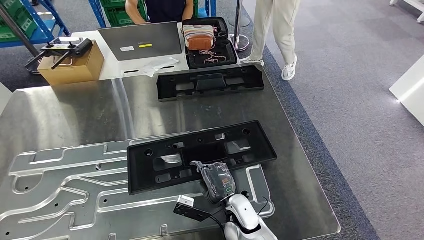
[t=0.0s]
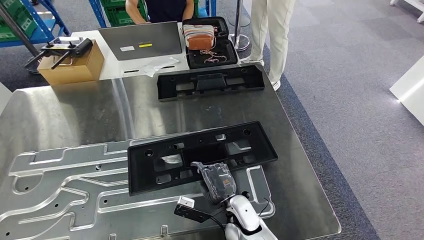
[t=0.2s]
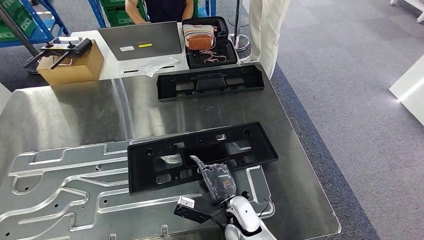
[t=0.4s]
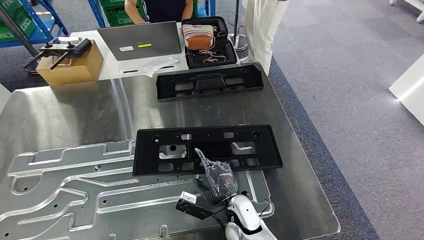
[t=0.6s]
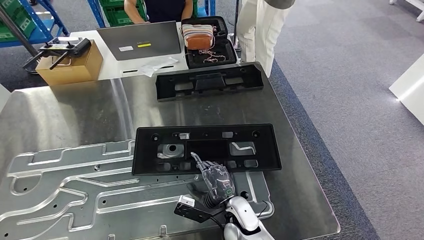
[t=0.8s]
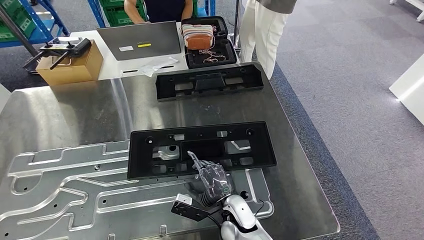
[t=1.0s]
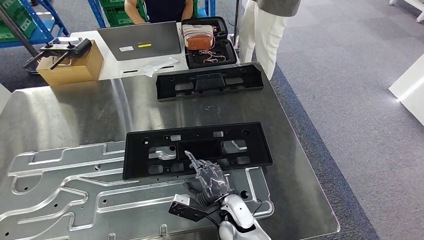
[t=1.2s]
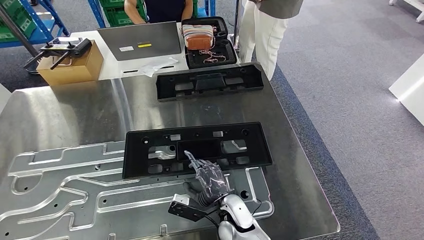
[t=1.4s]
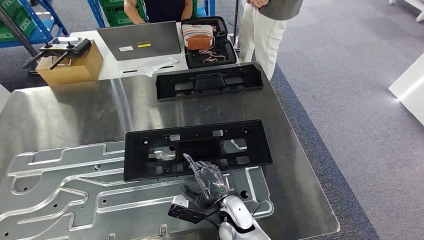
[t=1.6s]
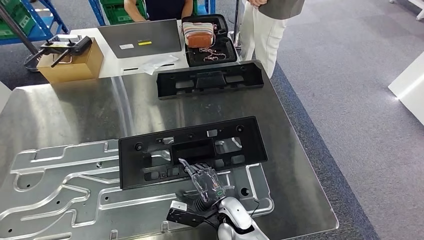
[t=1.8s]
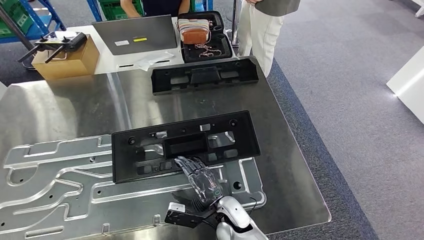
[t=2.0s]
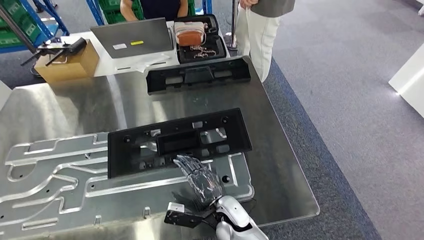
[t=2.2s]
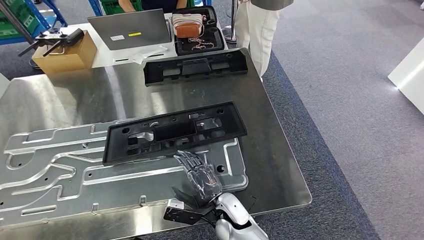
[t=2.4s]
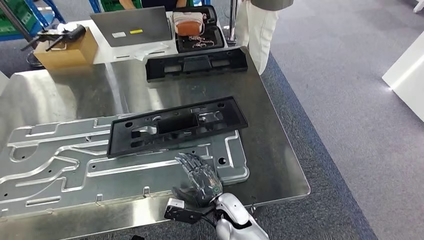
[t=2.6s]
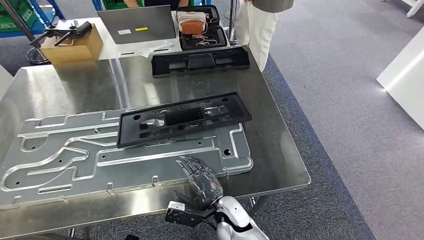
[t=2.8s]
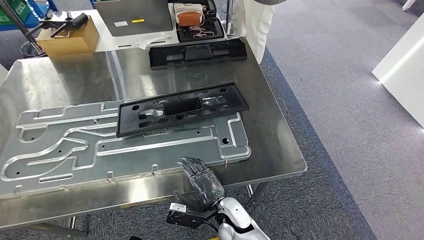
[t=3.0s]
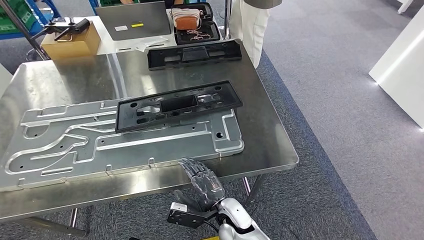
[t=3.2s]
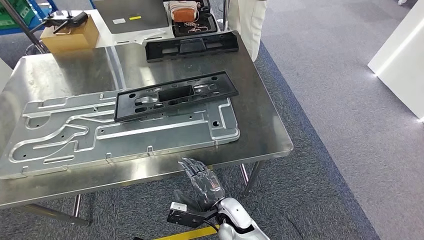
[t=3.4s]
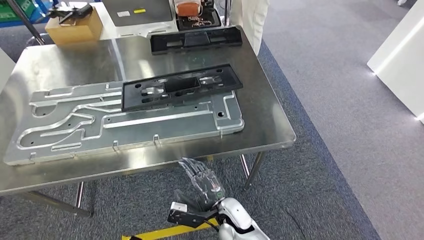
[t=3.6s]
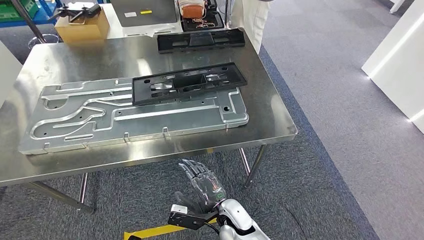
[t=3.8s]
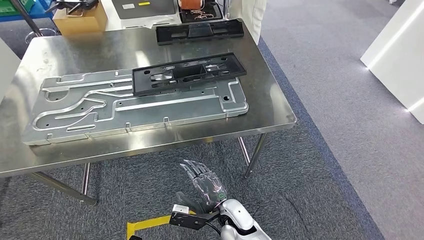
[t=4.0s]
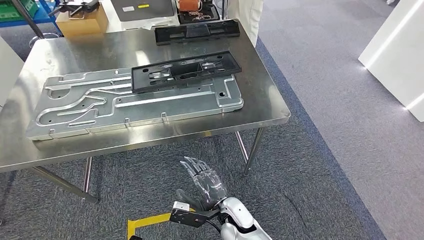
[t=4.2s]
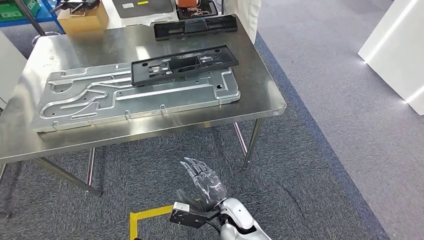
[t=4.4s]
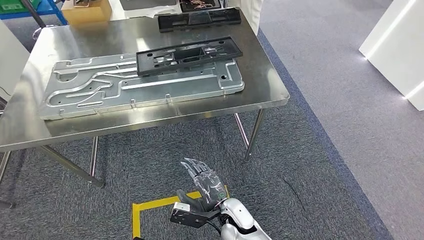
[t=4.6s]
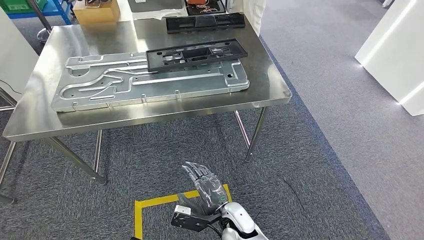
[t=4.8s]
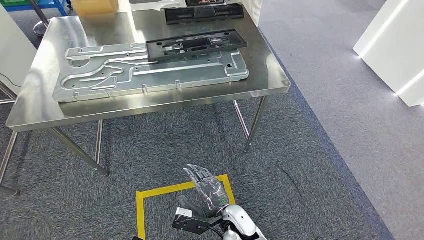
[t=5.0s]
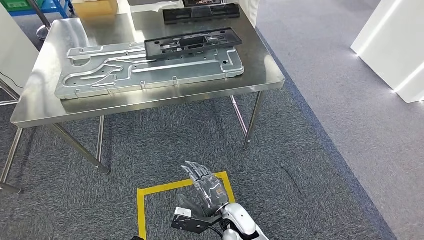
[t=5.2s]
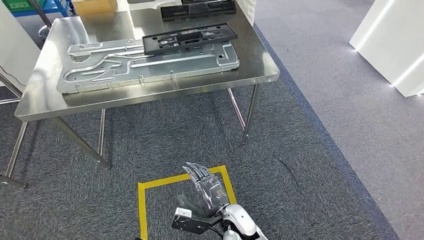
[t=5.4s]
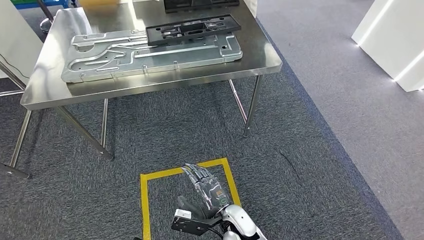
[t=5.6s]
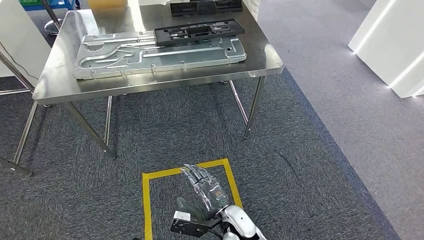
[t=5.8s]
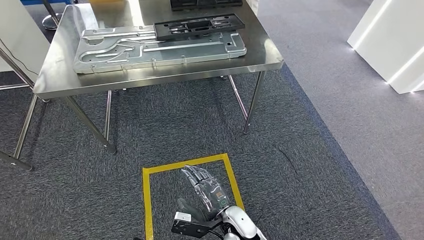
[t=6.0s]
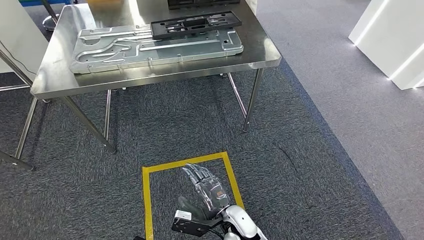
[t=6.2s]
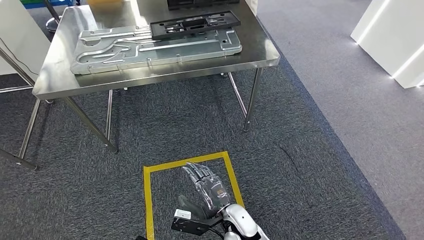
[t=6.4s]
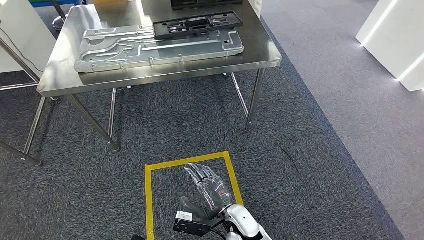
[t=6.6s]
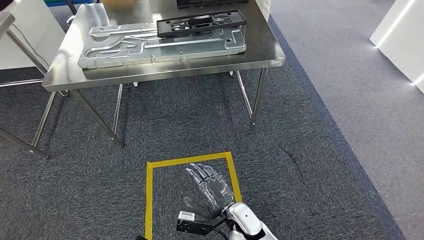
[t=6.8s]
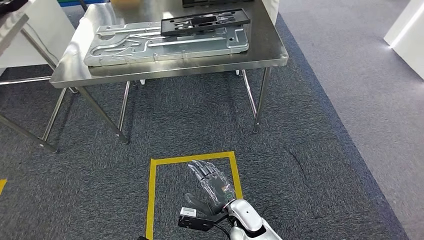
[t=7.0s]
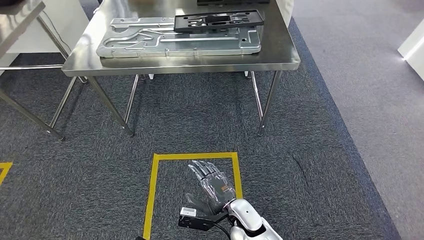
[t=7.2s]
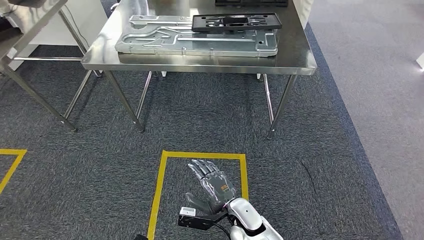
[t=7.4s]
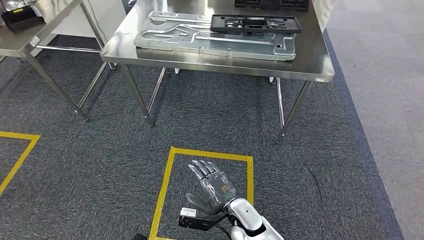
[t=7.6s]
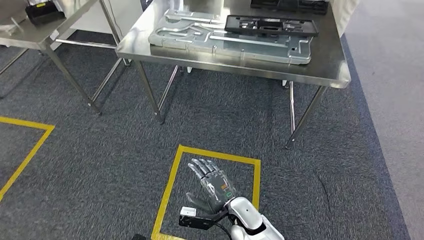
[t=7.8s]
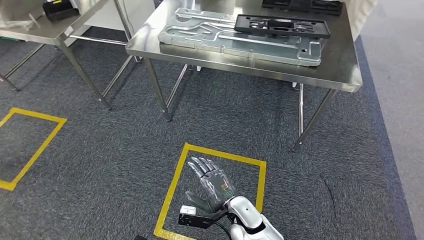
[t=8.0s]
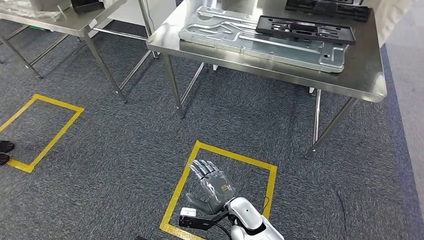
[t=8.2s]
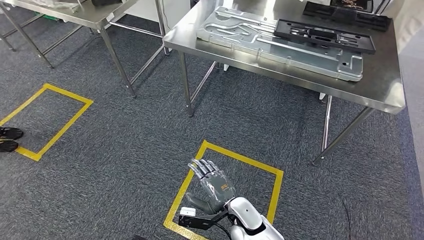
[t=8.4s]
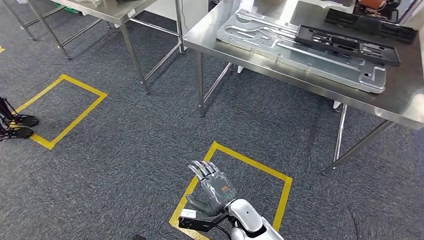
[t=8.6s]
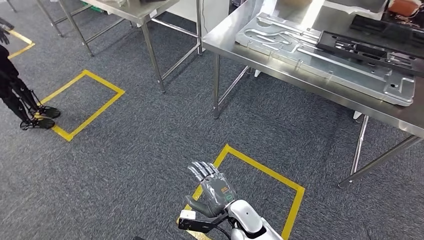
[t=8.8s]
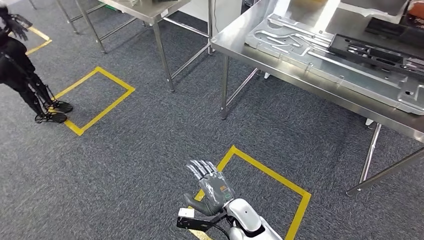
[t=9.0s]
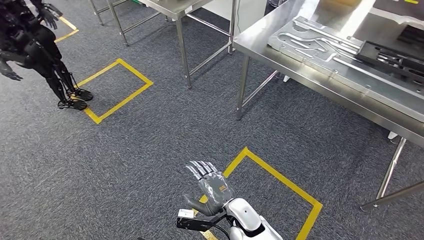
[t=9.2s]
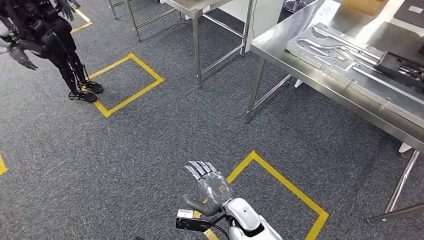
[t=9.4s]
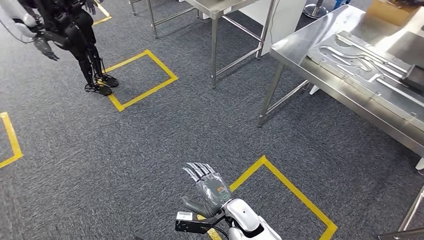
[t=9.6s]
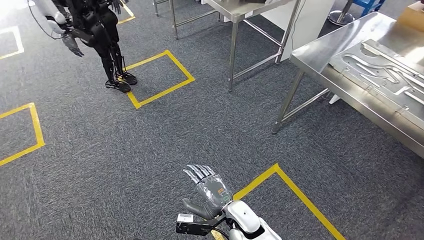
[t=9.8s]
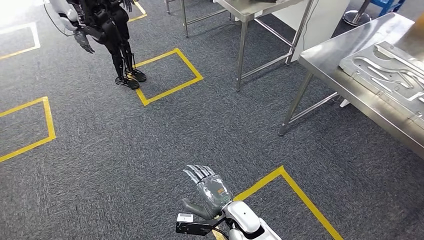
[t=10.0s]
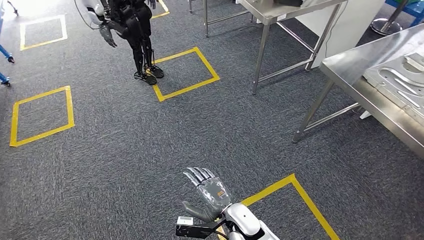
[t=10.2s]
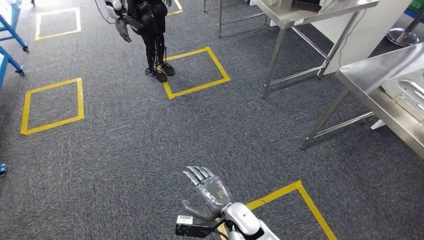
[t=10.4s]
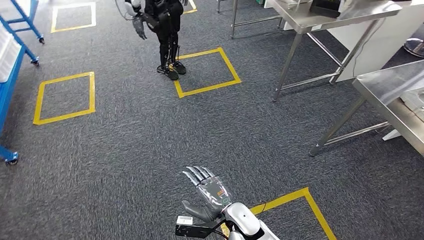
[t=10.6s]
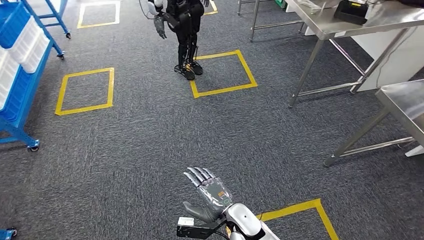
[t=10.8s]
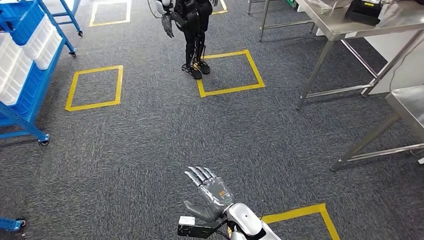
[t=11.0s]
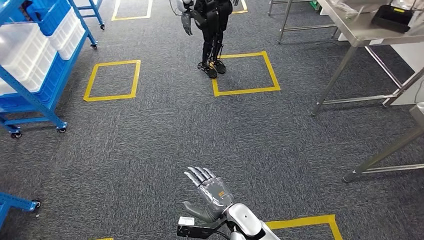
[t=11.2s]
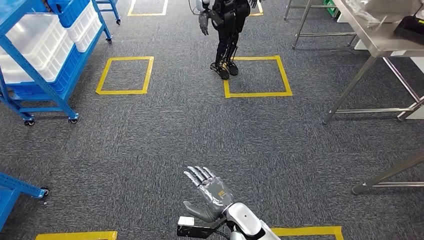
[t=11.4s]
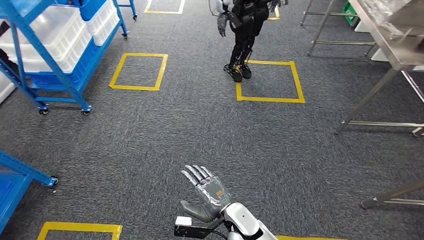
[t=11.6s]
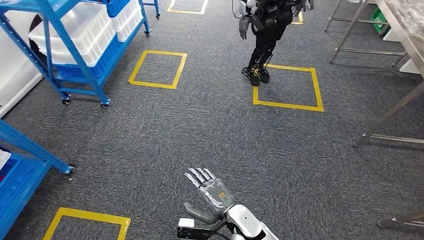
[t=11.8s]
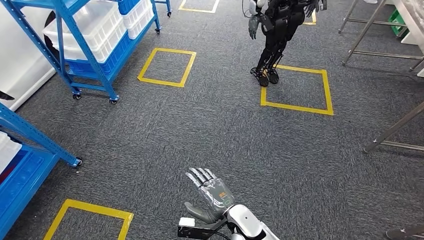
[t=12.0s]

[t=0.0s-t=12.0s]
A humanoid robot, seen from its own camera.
Step, t=1.6s to t=5.0s: Insert the large material into the corresponding hole on the workbench.
t=0.0s to t=1.6s: There are only small adjustments of the hands.

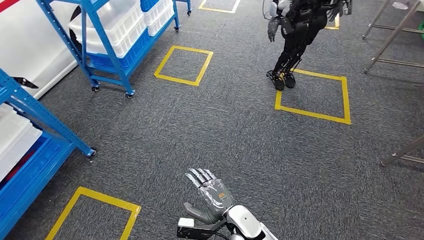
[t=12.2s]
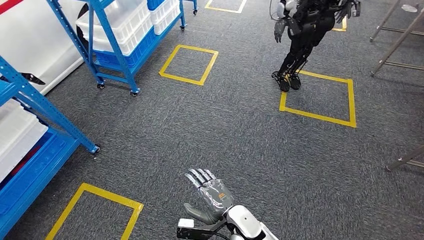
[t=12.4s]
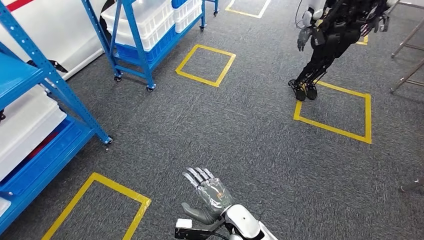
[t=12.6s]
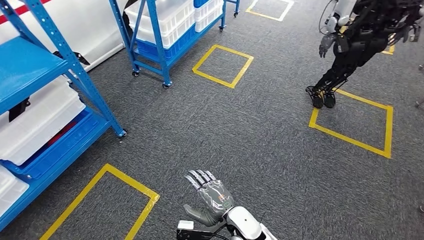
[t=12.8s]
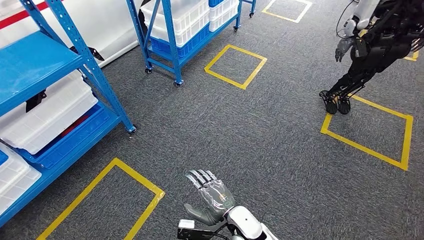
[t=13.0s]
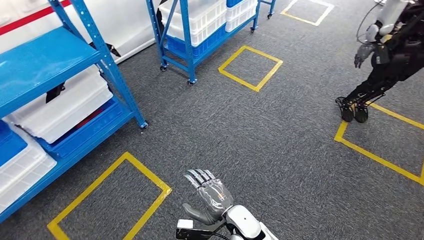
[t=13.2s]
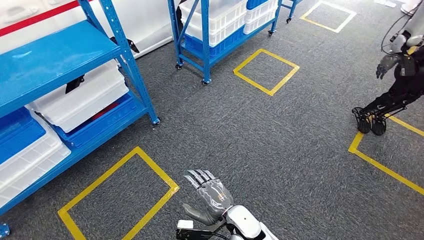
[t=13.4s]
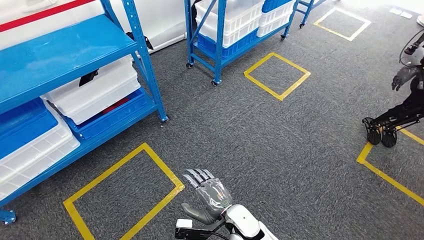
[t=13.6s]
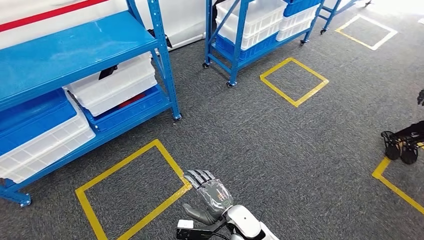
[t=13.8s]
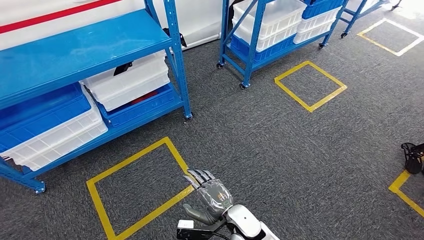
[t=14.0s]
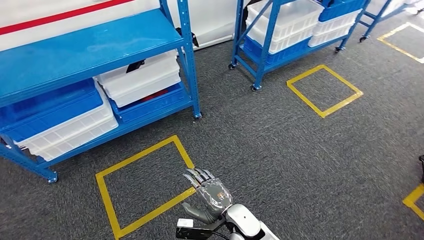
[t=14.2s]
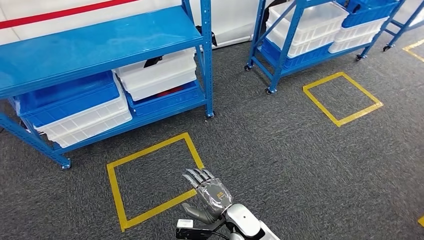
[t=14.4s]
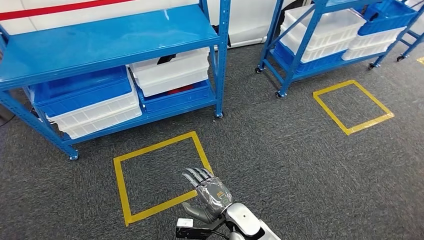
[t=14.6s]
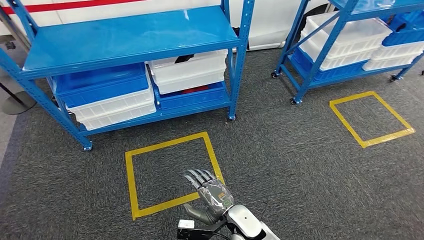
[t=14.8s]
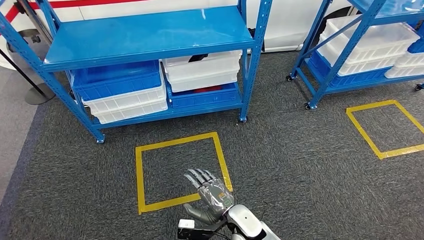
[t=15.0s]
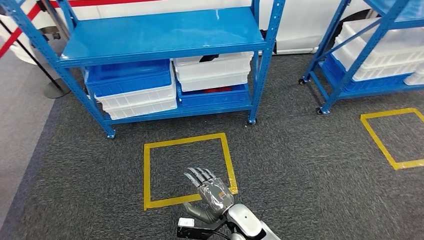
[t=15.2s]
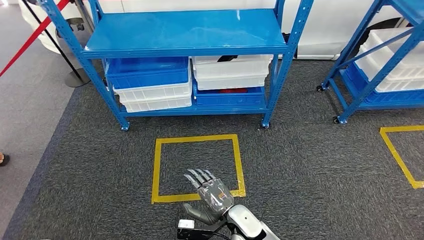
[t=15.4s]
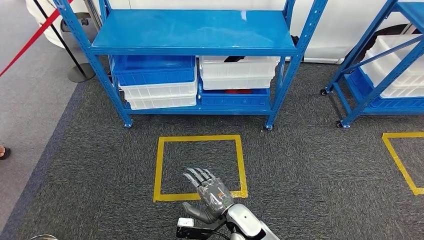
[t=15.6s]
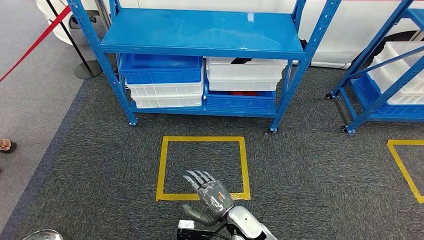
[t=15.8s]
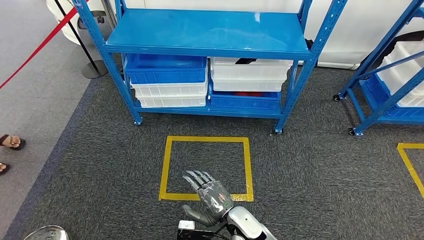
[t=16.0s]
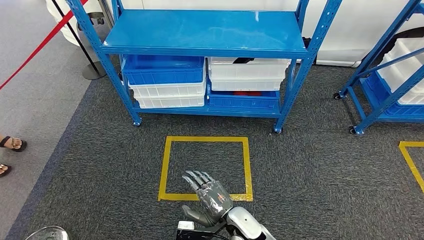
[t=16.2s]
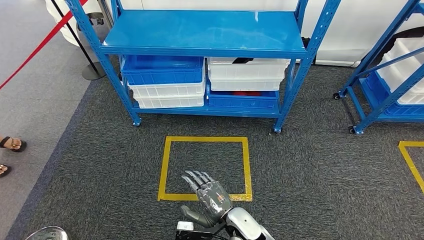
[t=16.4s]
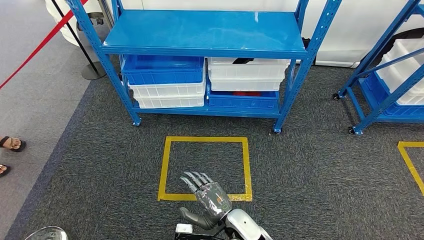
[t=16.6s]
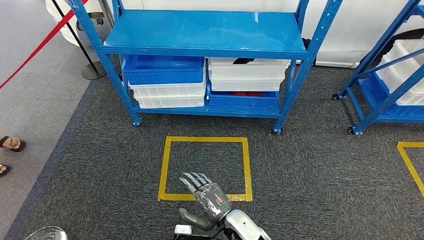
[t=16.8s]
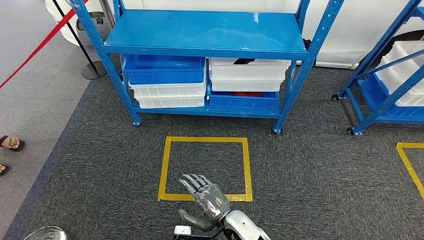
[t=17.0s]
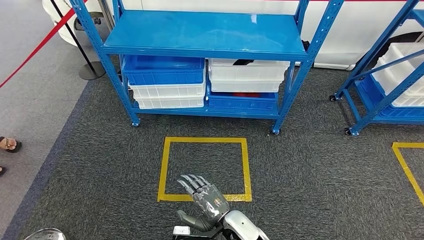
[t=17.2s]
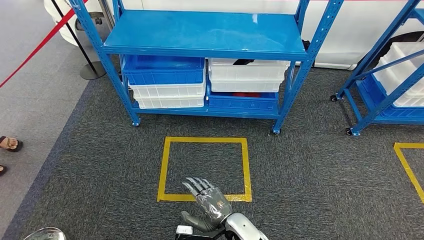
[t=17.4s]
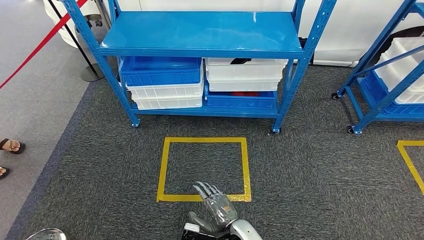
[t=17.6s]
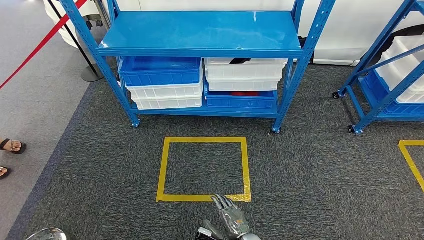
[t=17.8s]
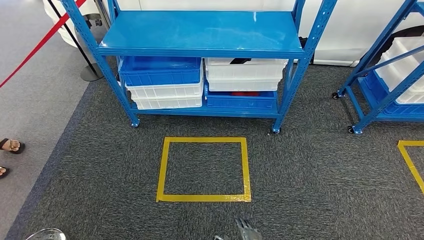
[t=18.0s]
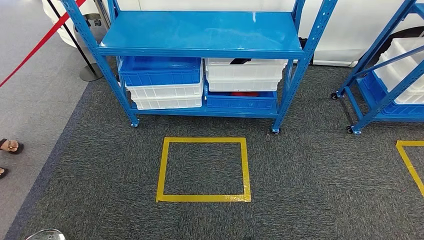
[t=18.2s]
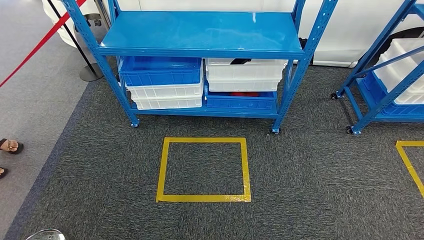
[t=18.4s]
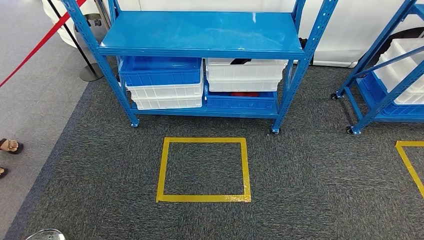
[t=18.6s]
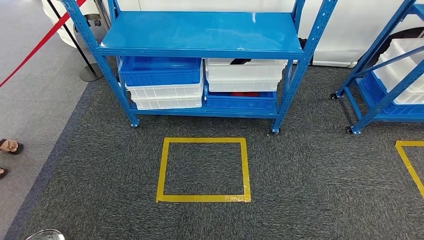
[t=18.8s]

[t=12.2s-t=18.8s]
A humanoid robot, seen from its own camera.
Step, t=12.2s to t=18.8s: Move to the initial position of the shelf.
t=17.2s to t=18.8s: The right hand goes approximately 25 cm downward, backward and to the right.
